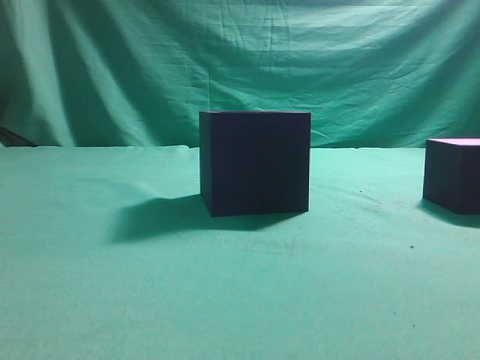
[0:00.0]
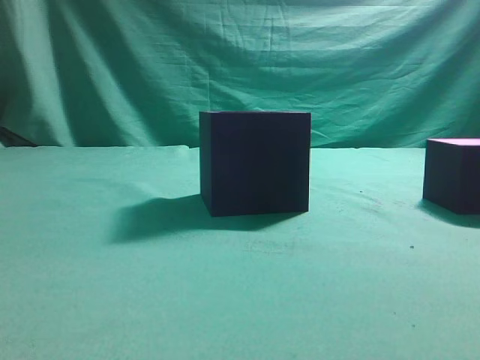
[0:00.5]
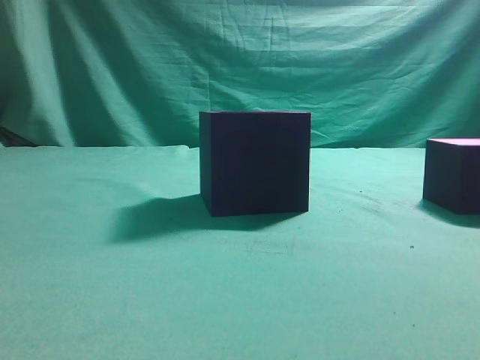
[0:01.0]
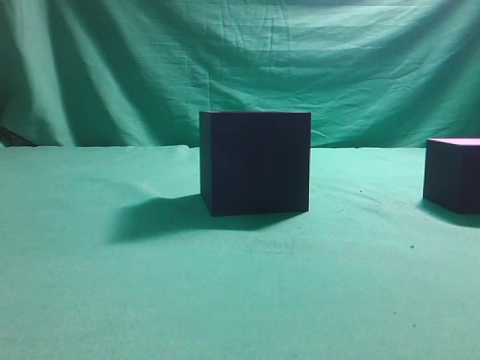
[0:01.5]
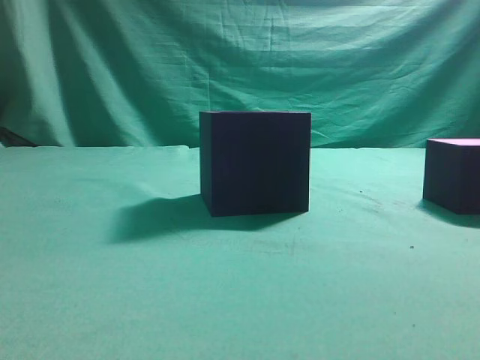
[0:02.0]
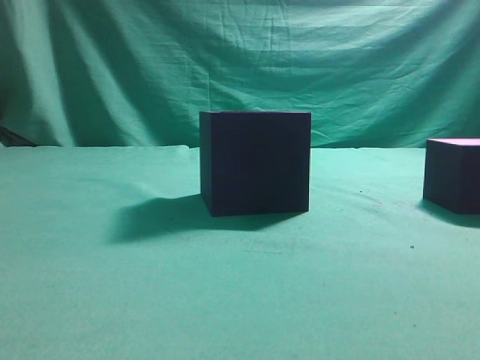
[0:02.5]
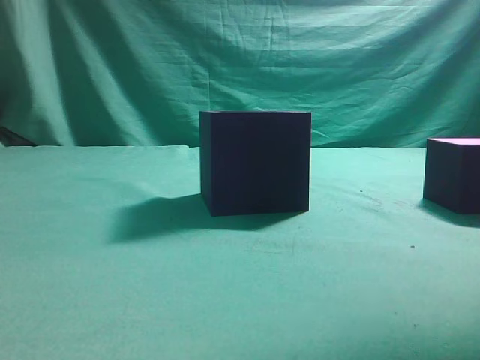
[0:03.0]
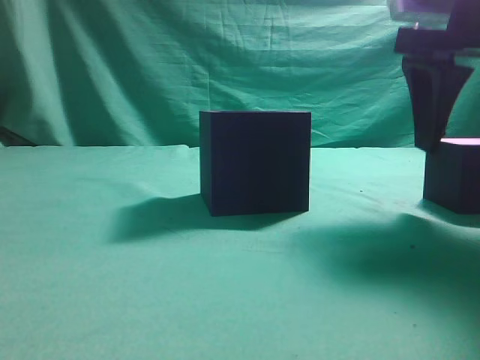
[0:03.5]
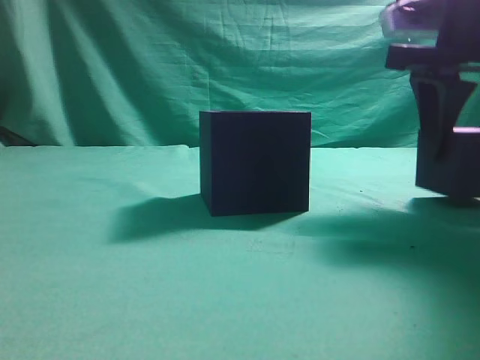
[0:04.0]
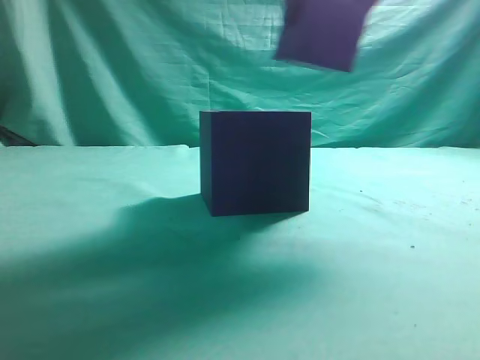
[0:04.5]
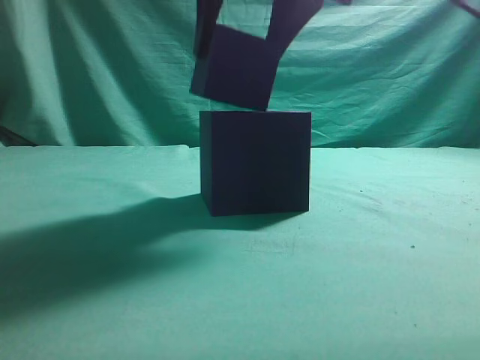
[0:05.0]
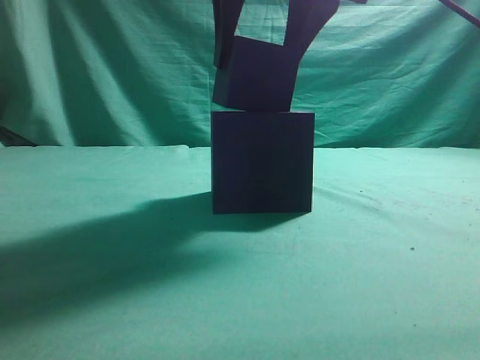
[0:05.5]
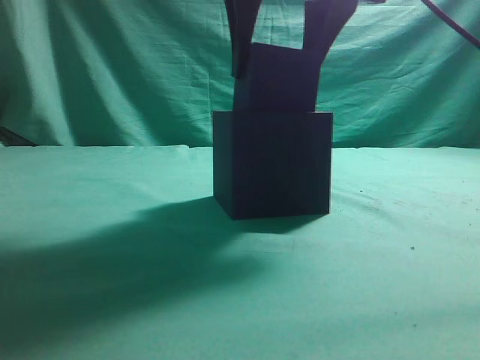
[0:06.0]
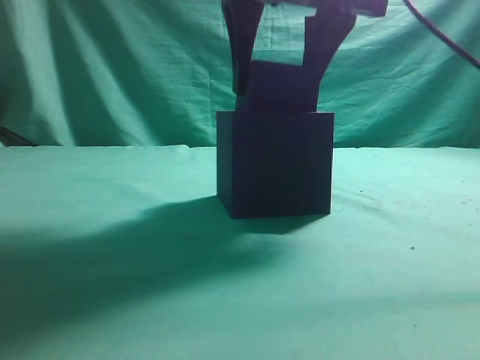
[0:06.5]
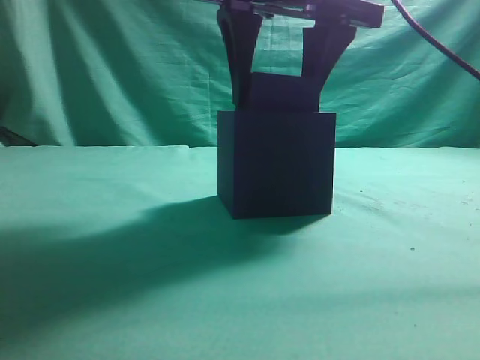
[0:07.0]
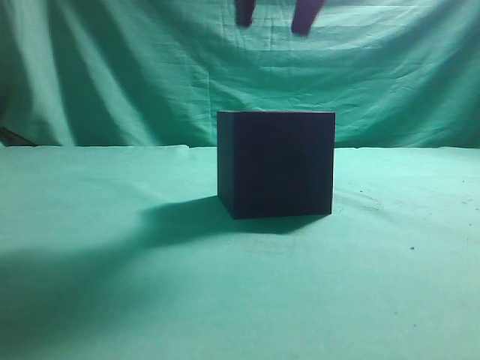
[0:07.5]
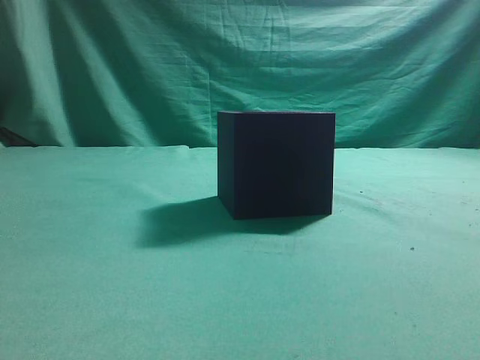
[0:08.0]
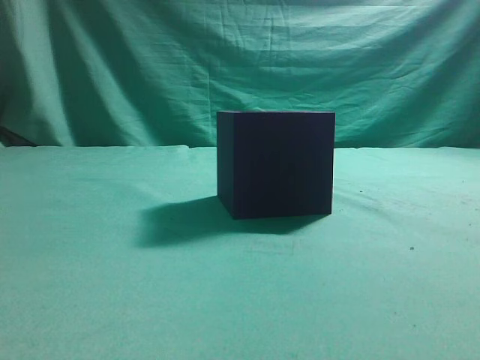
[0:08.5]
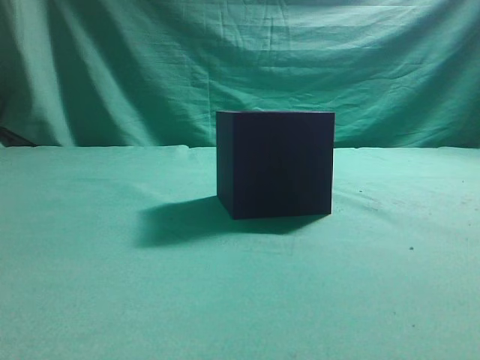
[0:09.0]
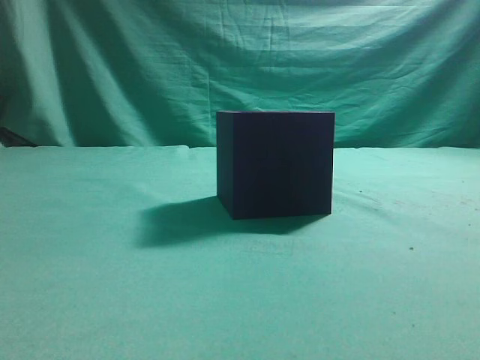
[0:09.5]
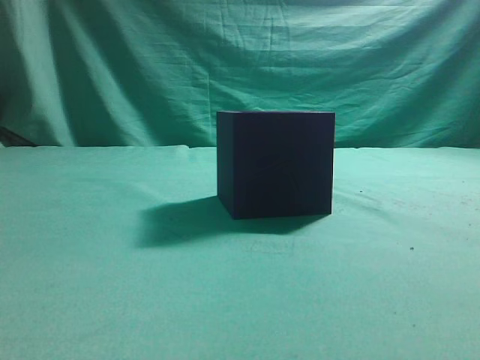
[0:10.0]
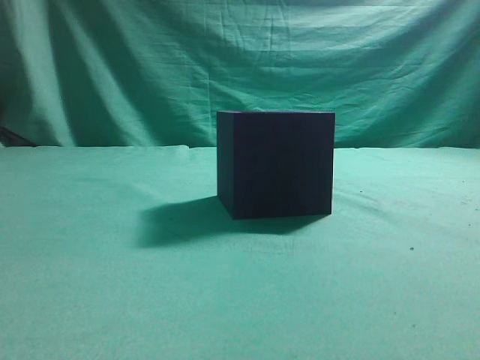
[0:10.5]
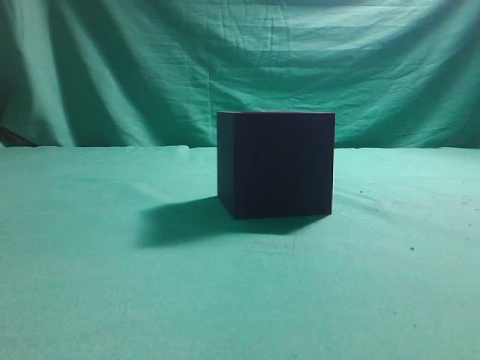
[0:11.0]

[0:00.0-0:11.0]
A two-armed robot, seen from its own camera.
Task of the whole recording: pick up the cube block and place it into the cube groove.
Step, 0:00.0 to 0:04.0: Grasp the cube.
Step, 0:04.5 to 0:07.0: Place cube into the cube-shaped recess.
0:02.0 to 0:03.5: The right gripper moves forward, some 25 cm, and opens its fingers.
0:03.5 to 0:05.5: The right gripper heads to the left, covering approximately 15 cm.
0:05.5 to 0:07.5: The grippers make only small movements.
0:07.5 to 0:09.0: The right gripper shifts roughly 35 cm backward, to the right and upward, and closes.

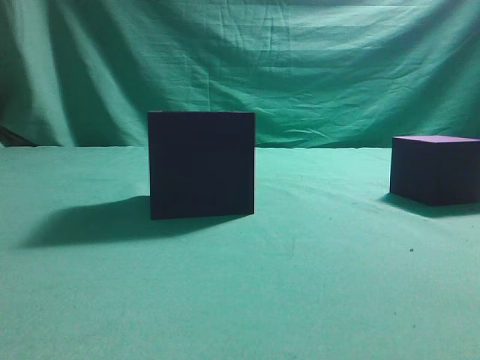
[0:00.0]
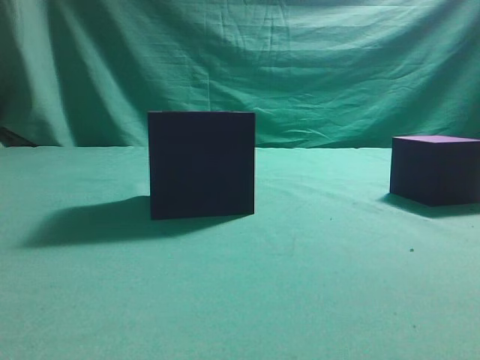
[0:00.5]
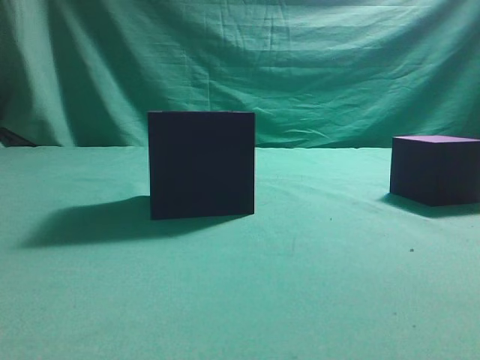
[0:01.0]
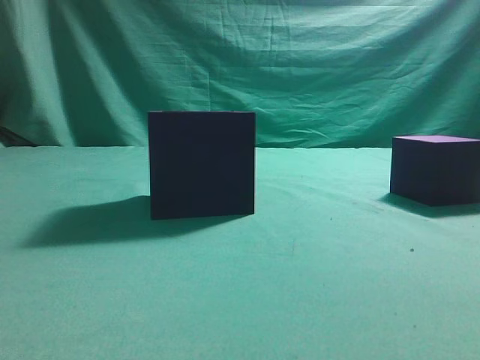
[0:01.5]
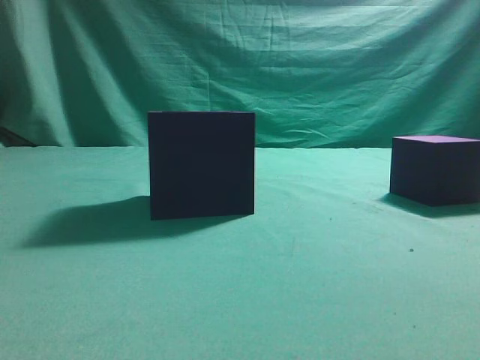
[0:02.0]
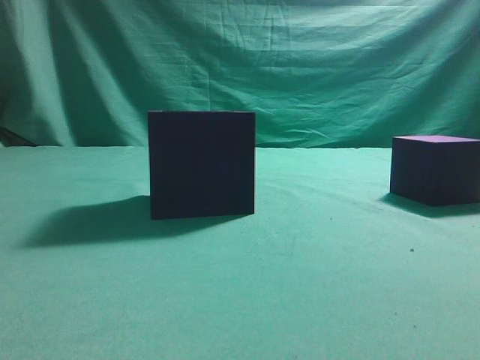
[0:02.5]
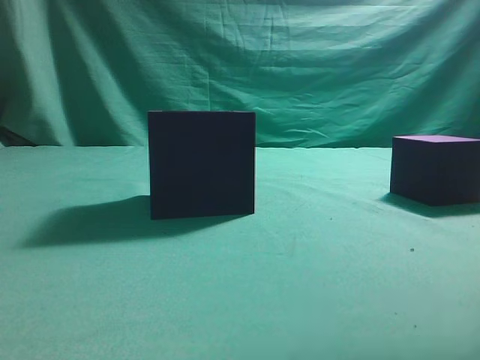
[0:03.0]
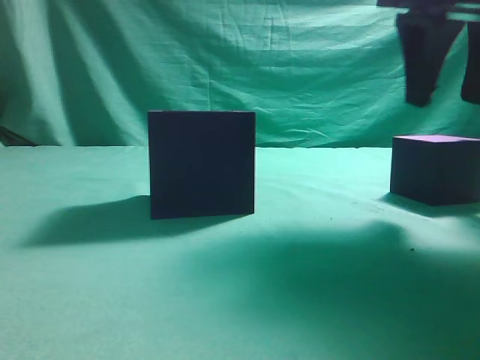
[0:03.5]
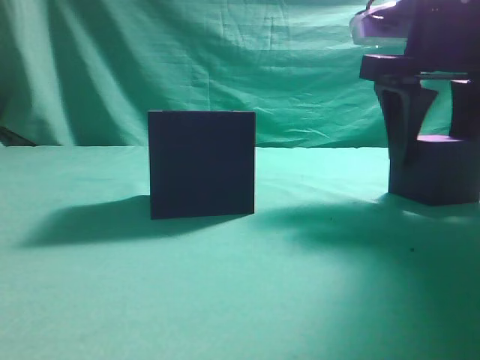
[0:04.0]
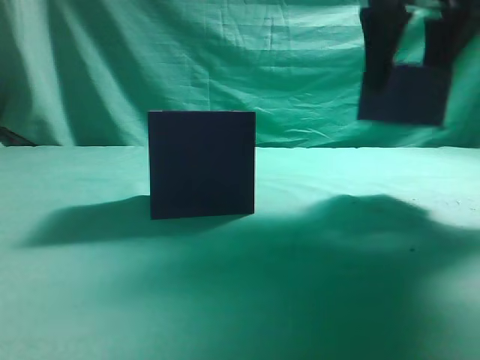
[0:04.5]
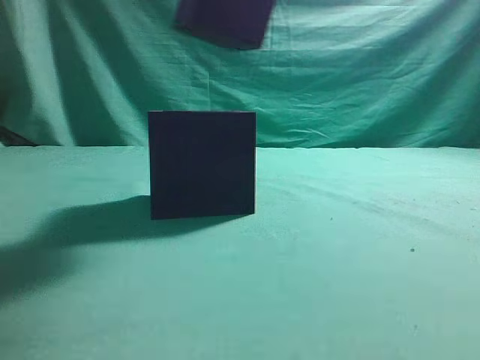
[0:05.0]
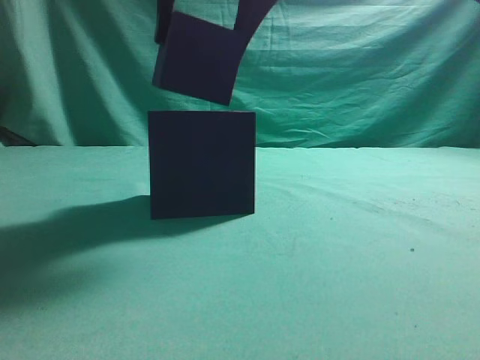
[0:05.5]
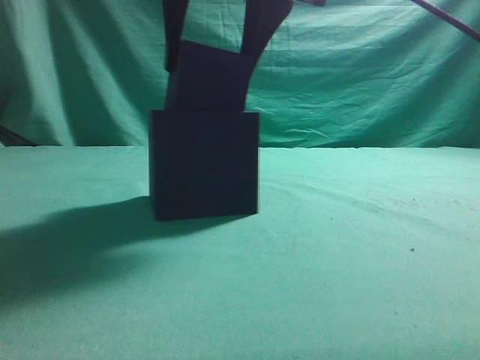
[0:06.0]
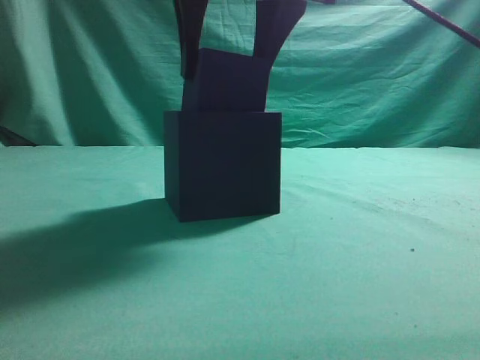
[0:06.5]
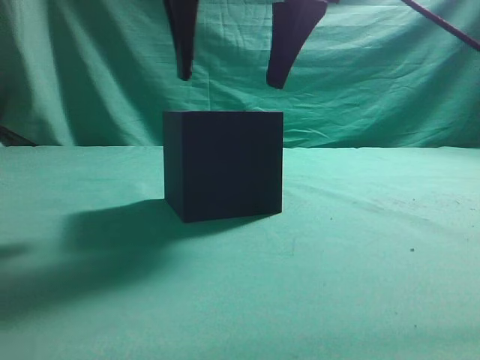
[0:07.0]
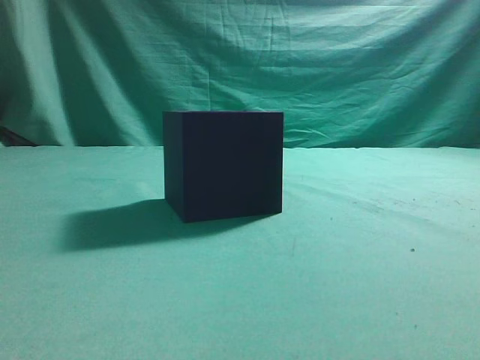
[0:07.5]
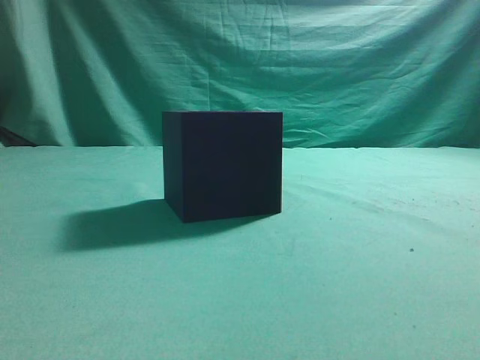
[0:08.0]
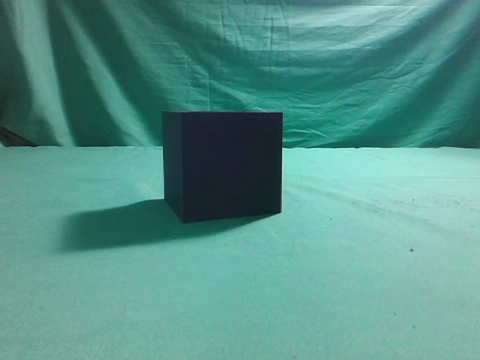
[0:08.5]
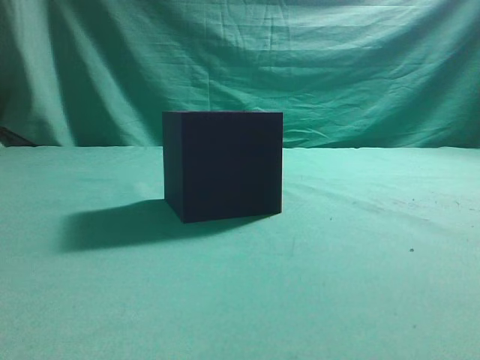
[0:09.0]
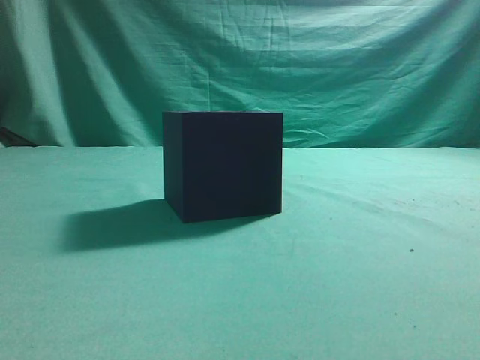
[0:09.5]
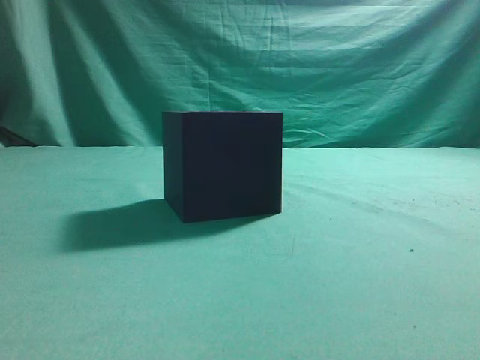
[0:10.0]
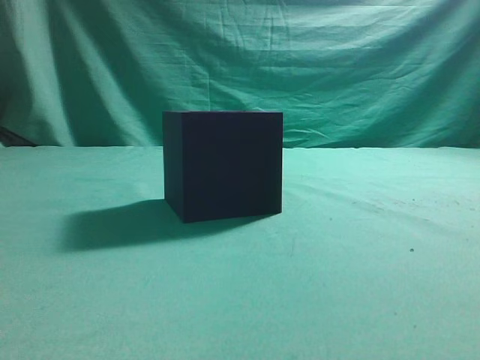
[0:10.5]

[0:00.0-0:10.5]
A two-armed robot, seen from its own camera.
Task of the whole recording: pick up the cube block and place it into the cube groove.
Step, 0:00.0 to 0:04.0: Grasp the cube.
Step, 0:04.5 to 0:07.0: Place cube into the cube-shaped recess.
0:02.0 to 0:04.0: The right gripper is displaced forward and to the left by roughly 30 cm, and opens its fingers.
0:04.0 to 0:06.5: The right gripper is displaced to the left and upward by approximately 20 cm.
0:06.5 to 0:08.5: The right gripper goes about 35 cm backward, to the right and upward, and closes its fingers.
